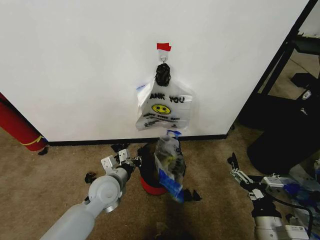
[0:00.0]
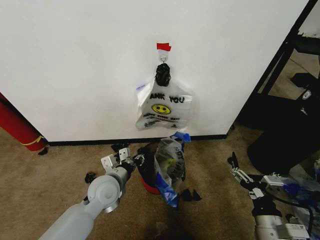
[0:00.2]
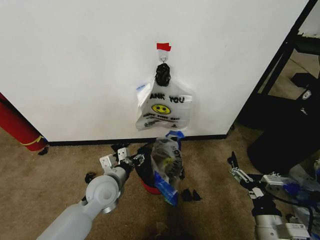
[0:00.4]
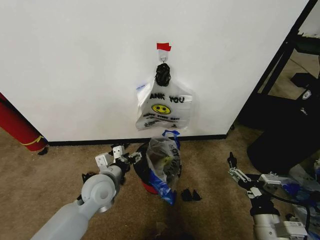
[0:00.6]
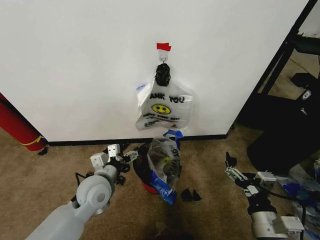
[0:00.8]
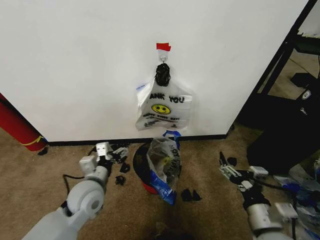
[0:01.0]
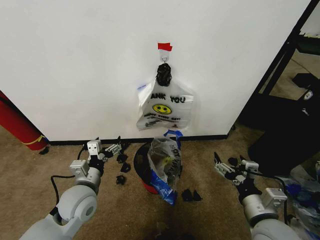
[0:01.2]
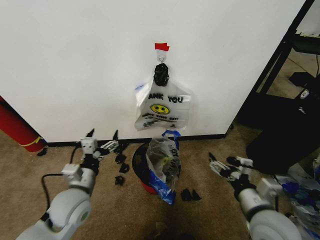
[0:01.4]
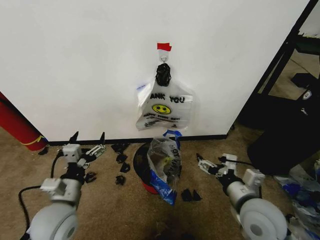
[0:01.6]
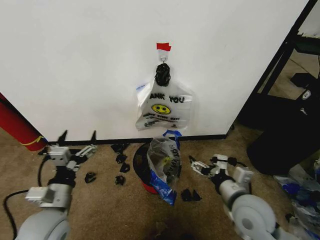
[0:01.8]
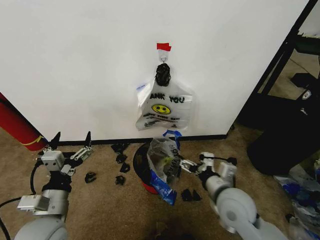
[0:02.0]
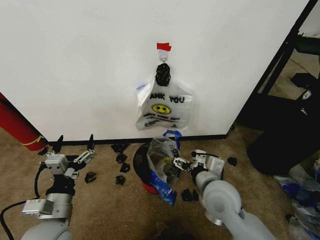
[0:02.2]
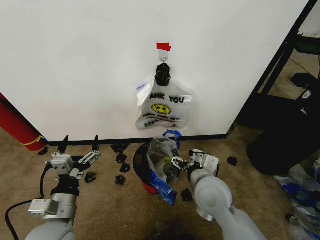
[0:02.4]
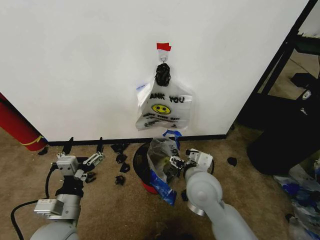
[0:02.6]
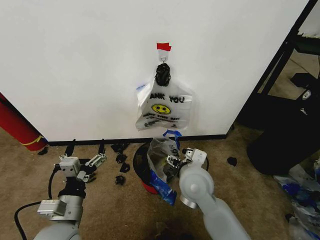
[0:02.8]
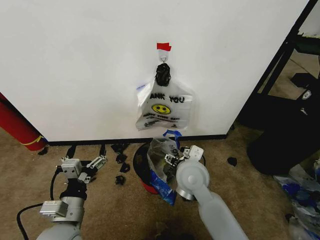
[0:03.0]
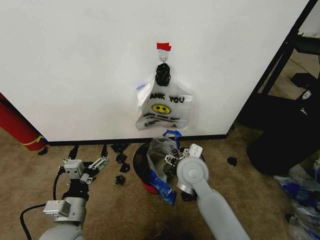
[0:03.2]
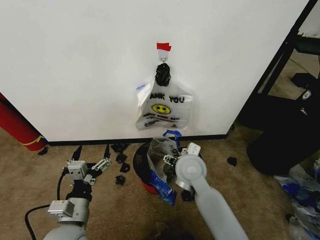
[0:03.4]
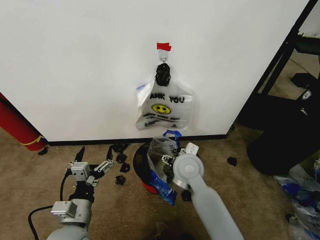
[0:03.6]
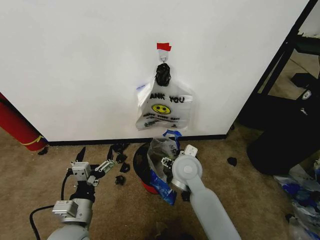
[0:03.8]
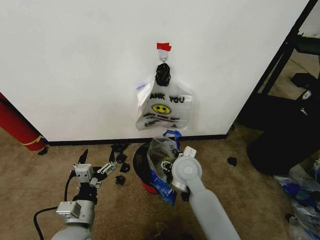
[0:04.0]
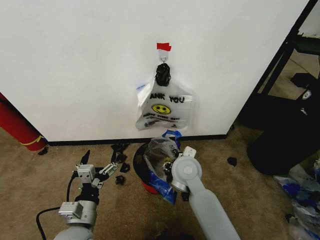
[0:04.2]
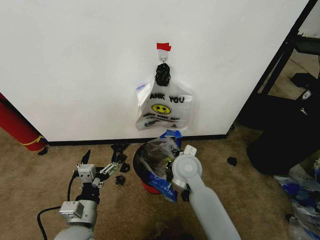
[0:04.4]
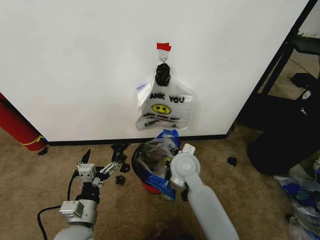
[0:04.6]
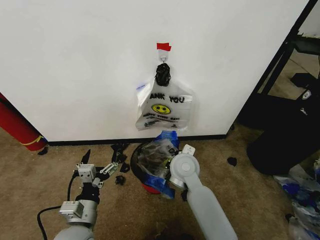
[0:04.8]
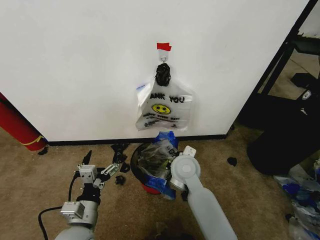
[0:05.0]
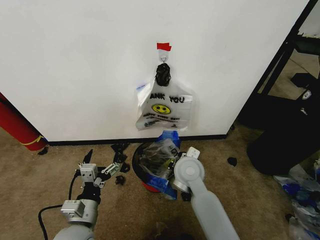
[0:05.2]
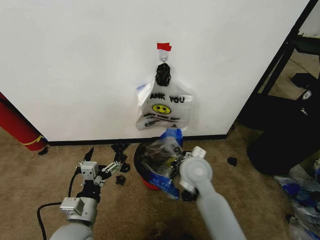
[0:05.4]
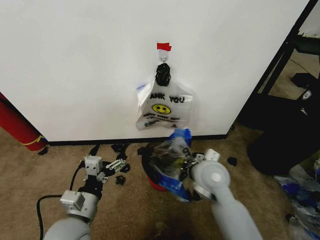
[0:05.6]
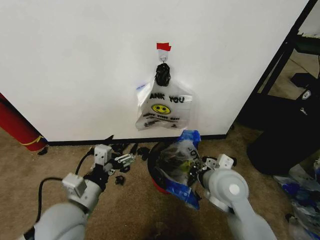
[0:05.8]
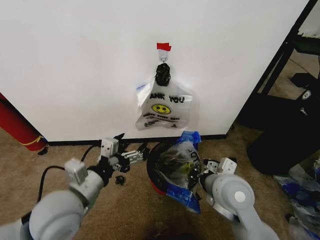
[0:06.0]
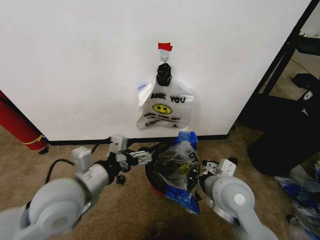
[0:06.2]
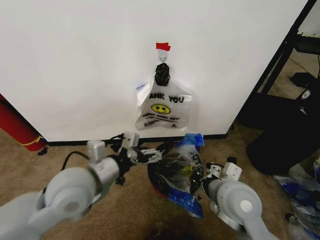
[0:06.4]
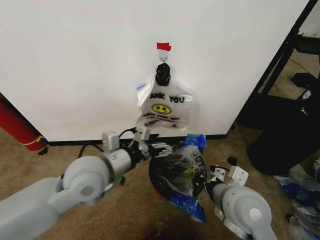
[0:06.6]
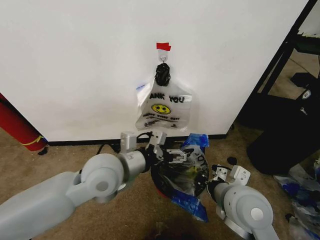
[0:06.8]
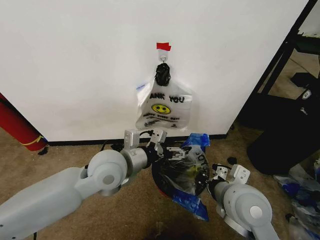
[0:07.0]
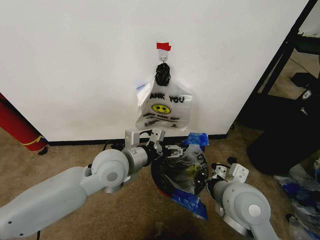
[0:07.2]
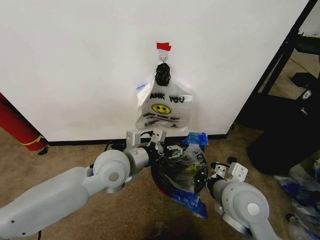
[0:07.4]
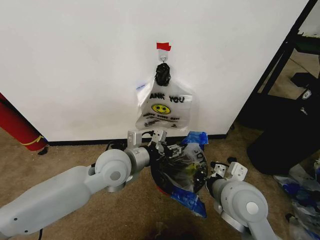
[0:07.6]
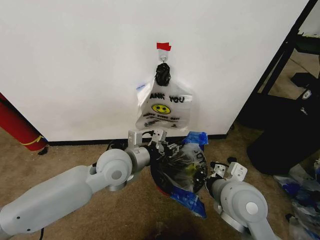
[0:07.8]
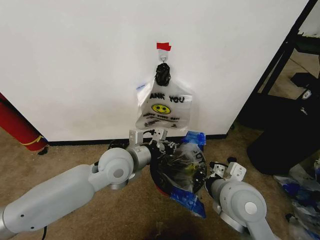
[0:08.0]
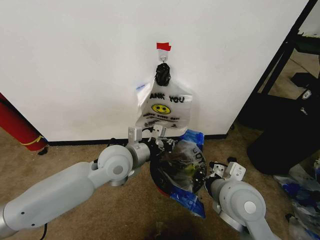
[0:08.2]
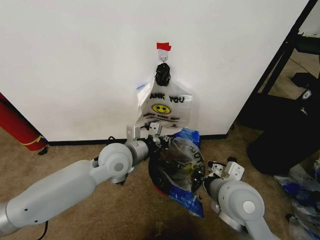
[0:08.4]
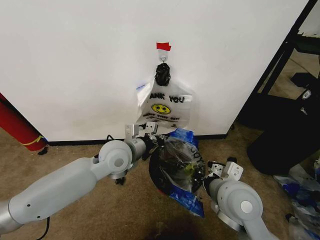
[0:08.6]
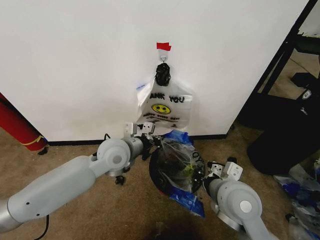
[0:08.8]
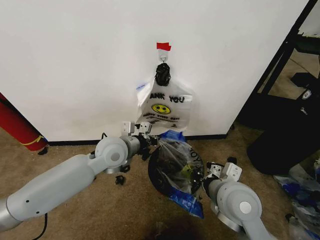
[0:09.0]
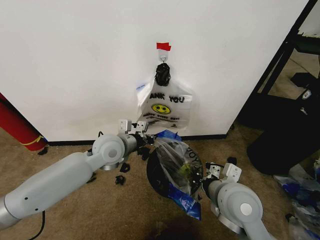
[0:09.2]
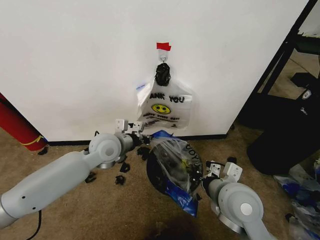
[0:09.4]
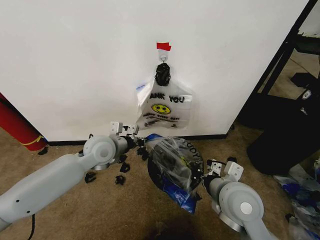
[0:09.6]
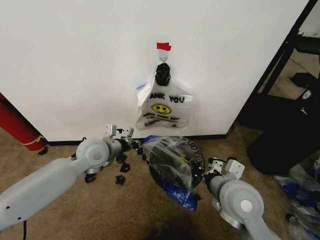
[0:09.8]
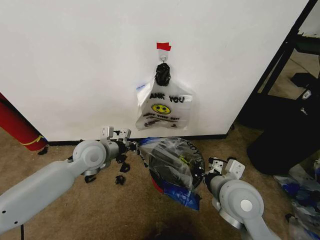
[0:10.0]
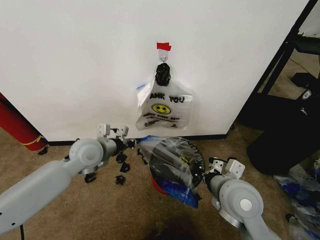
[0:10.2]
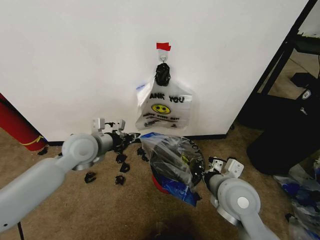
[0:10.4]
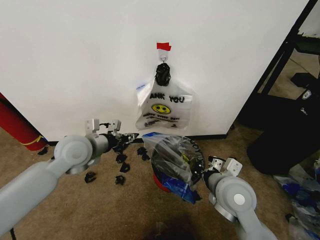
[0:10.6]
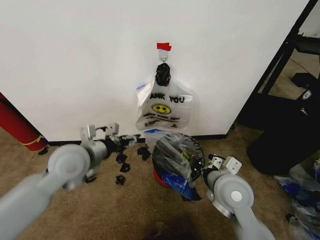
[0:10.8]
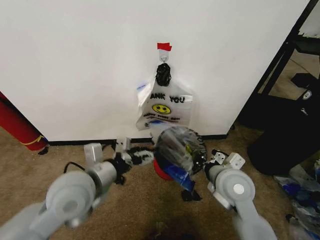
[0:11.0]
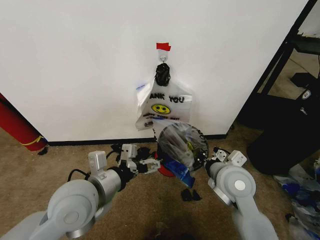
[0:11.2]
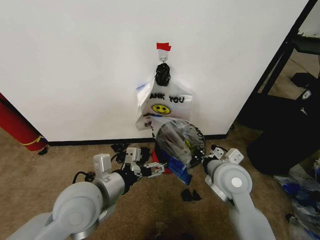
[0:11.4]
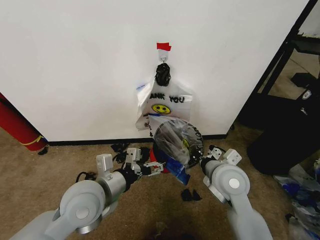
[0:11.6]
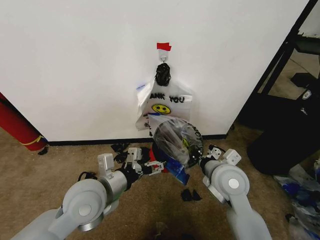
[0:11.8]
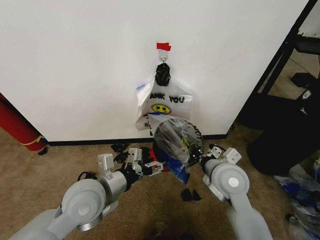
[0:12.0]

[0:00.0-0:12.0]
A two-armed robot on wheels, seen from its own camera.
Task of the whole recording: Pick up the garbage bag from the wall and place it over the trash bin.
0:00.0 to 0:01.6: The right gripper is displaced forward and upward by some 10 cm; the left gripper heads backward and to the left, covering roughly 15 cm, and opens.
0:01.6 to 0:03.0: The left gripper moves approximately 5 cm; the right gripper heads to the left and forward, covering about 20 cm.
0:03.0 to 0:04.4: The right gripper closes its fingers.
0:04.4 to 0:06.0: The right gripper goes roughly 15 cm to the right and backward, and closes up. The left gripper goes about 10 cm upward.
0:06.0 to 0:07.6: The left gripper heads forward and to the right, covering roughly 15 cm, and closes.
0:07.6 to 0:09.0: The left gripper heads forward, covering roughly 5 cm, and closes its fingers.
0:09.0 to 0:10.4: The left gripper travels to the left by about 10 cm.
0:10.4 to 0:12.0: The left gripper is displaced backward and to the right by about 15 cm, and opens its fingers.

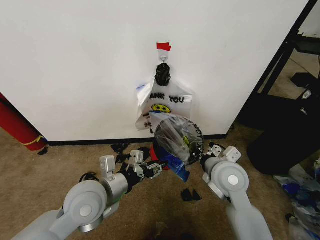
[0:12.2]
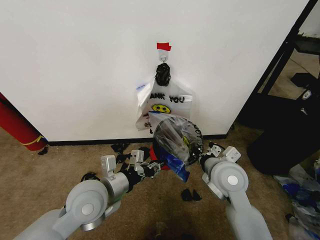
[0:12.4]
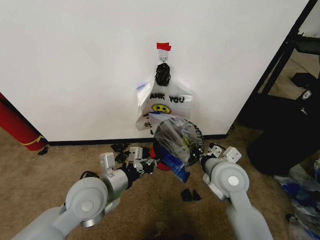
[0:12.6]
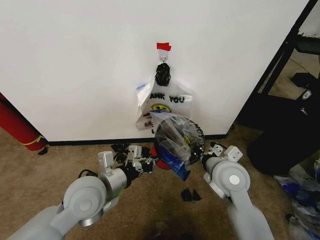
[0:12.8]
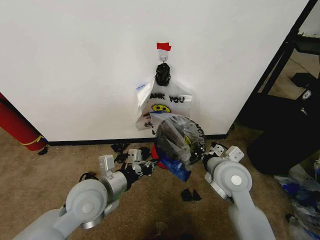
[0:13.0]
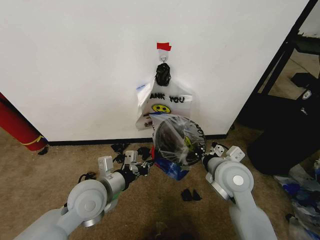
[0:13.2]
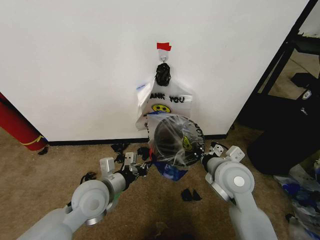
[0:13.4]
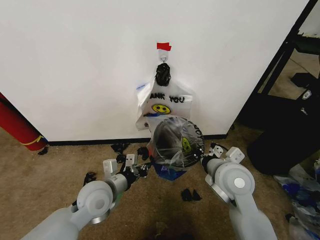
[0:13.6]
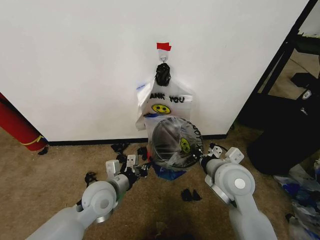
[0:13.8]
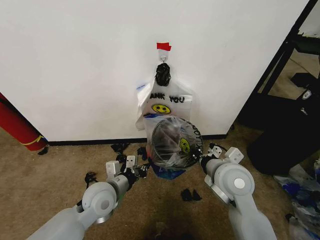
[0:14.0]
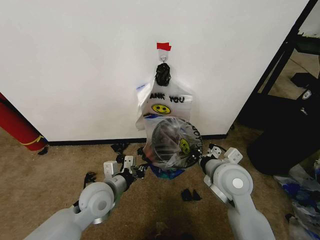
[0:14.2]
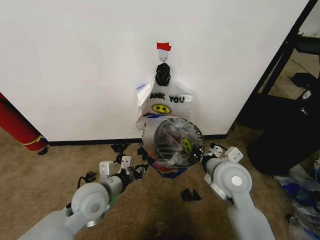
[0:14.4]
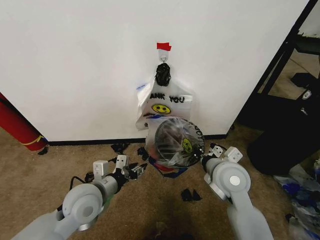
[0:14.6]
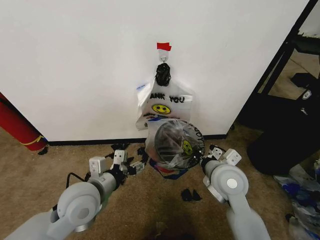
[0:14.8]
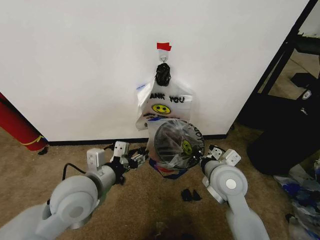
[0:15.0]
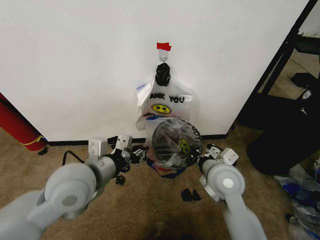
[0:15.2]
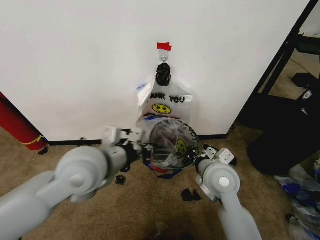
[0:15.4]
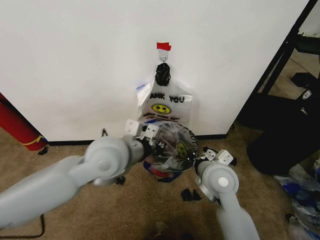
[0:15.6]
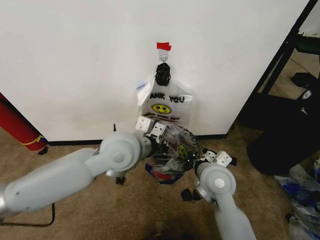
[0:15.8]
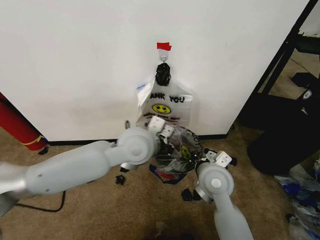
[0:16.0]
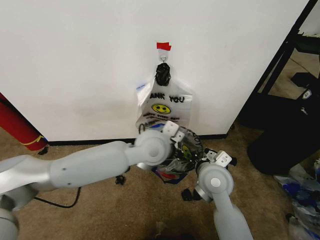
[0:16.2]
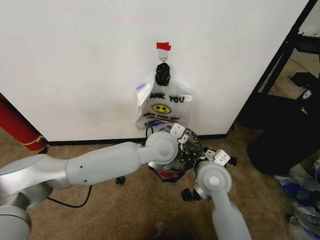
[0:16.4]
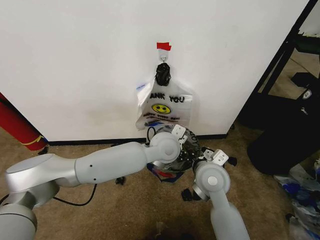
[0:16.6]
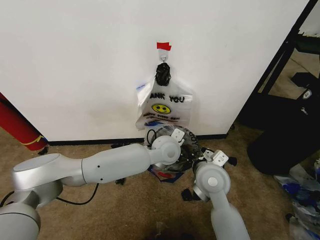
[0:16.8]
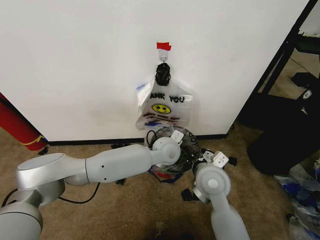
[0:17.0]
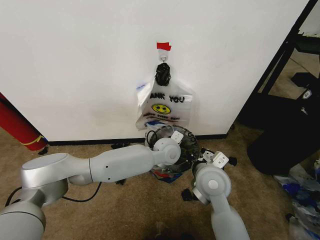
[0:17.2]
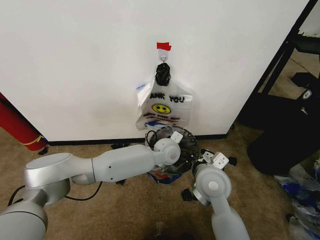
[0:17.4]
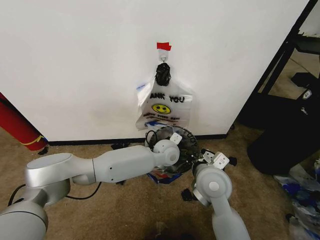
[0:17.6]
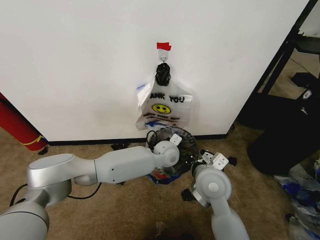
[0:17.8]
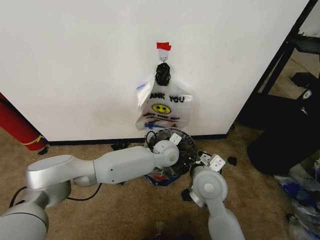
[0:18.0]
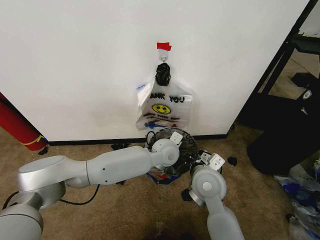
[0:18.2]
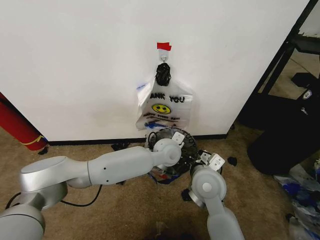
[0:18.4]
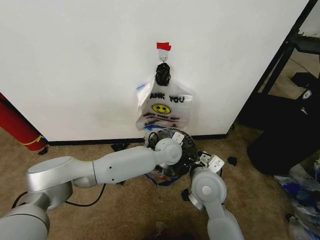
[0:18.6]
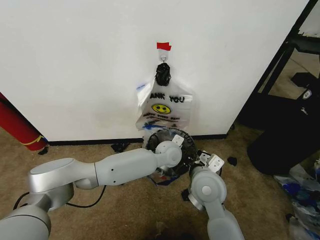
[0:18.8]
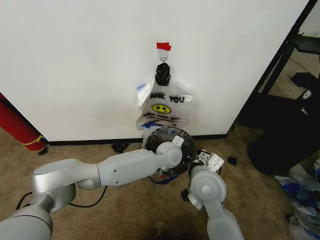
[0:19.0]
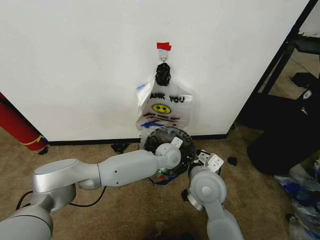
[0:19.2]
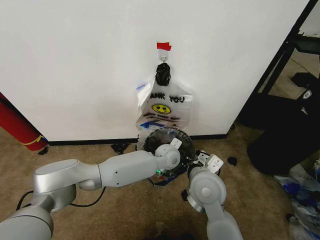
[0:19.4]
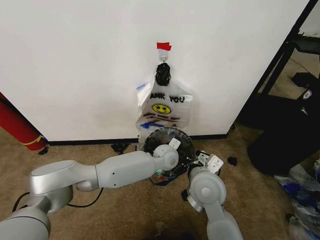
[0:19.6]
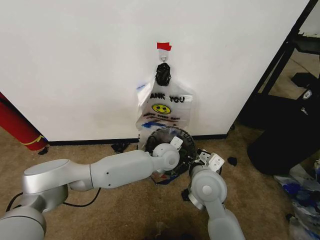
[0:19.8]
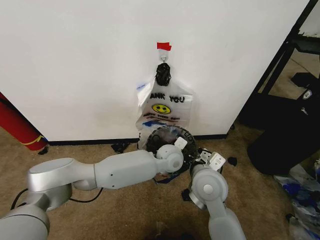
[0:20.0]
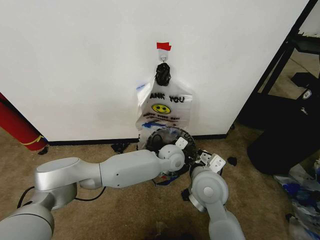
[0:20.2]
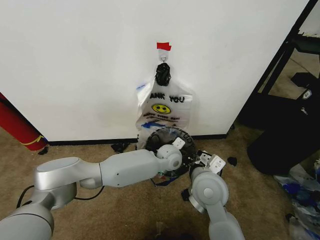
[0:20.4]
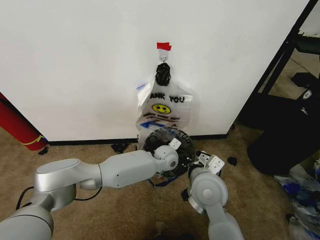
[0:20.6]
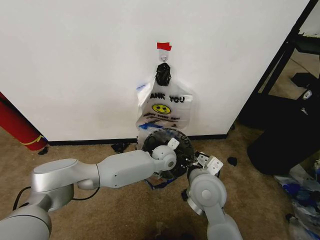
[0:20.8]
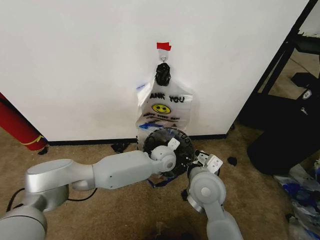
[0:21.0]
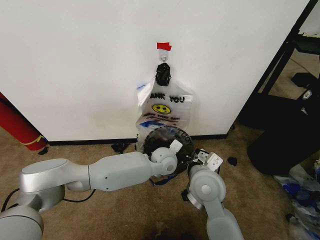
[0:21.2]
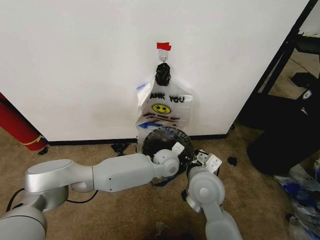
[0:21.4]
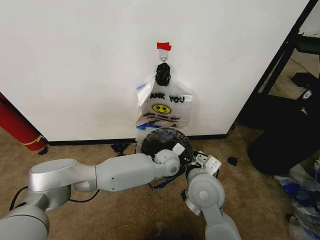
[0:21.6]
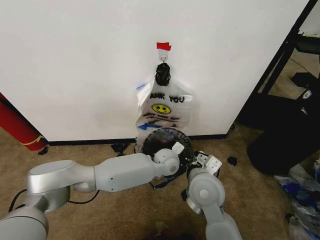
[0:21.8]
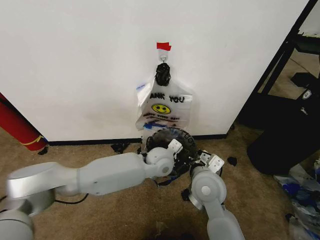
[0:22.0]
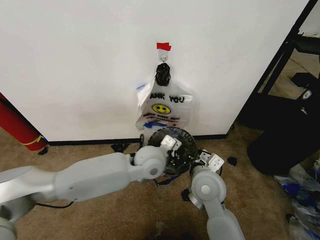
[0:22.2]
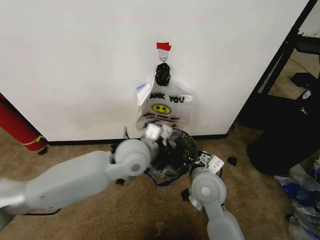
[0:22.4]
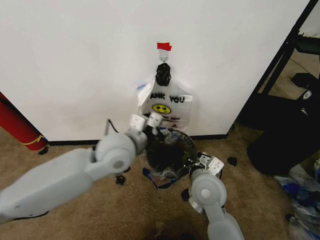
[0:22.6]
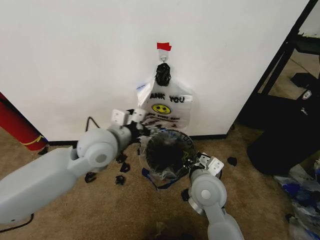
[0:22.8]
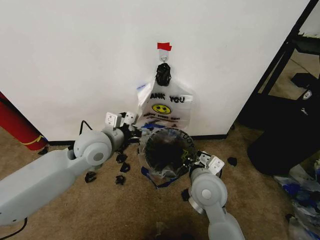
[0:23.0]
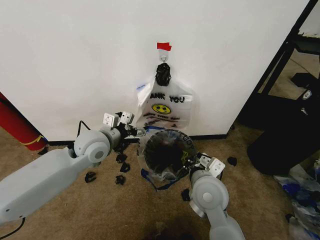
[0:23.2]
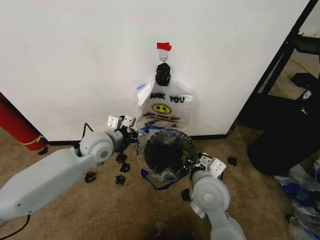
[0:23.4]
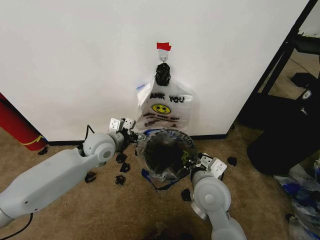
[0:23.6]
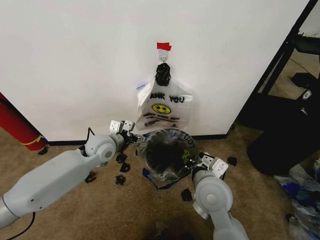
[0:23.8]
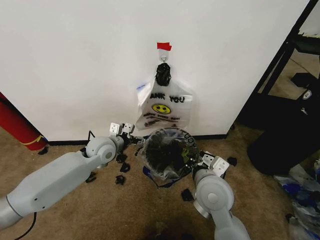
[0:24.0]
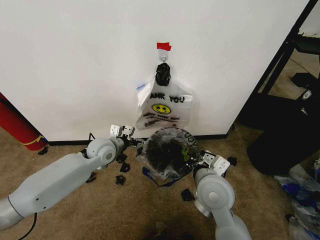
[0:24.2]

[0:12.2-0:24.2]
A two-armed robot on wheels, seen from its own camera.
Task of the whole recording: Pick up the garbage bag from the wall and place it over the trash bin.
0:12.2 to 0:13.8: The left gripper moves downward, about 10 cm, and closes.
0:13.8 to 0:15.2: The left gripper moves upward, roughly 15 cm, and opens and closes again.
0:15.2 to 0:16.6: The left gripper moves to the right and forward, approximately 25 cm.
0:16.6 to 0:18.2: The left gripper moves downward, roughly 5 cm.
0:19.8 to 0:21.2: The grippers move only a little.
0:21.2 to 0:22.6: The left gripper moves upward, to the left and backward, approximately 25 cm, and opens up.
0:22.6 to 0:24.2: The left gripper heads downward, forward and to the left, covering approximately 20 cm, and opens.
